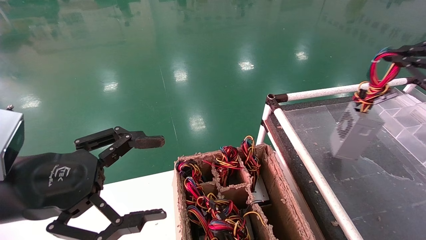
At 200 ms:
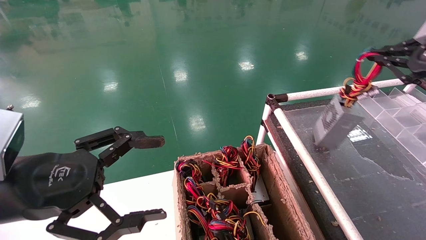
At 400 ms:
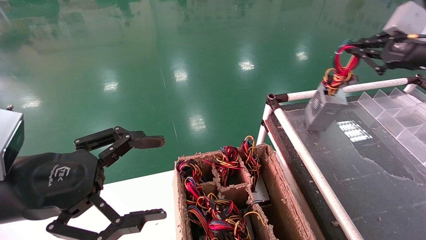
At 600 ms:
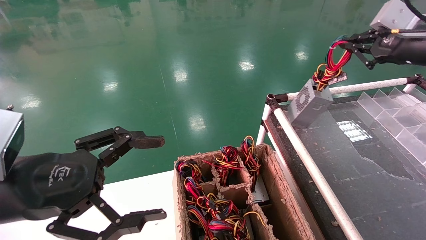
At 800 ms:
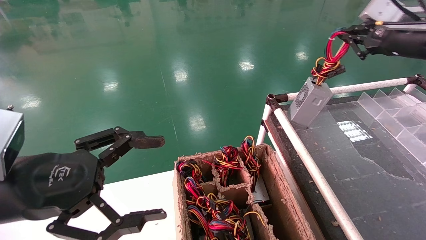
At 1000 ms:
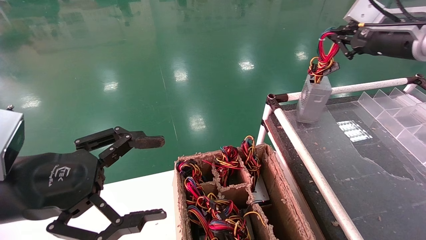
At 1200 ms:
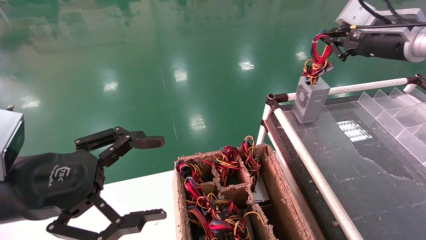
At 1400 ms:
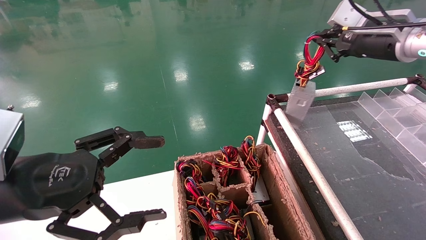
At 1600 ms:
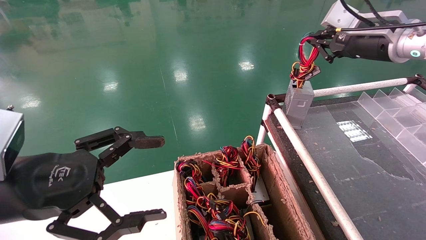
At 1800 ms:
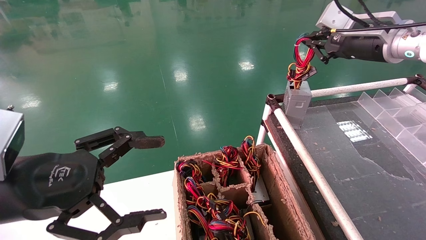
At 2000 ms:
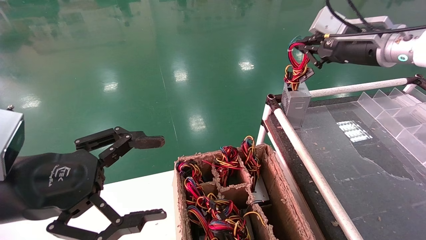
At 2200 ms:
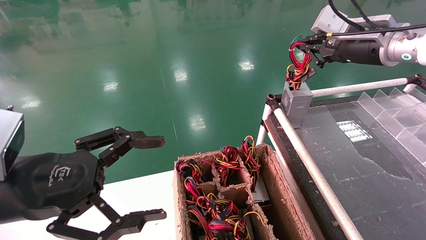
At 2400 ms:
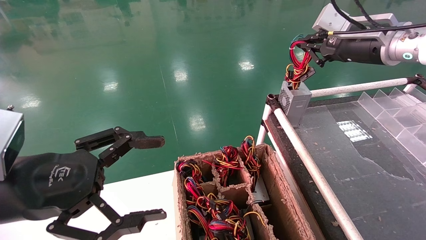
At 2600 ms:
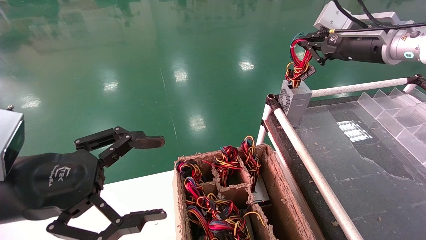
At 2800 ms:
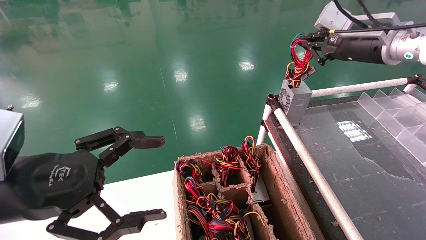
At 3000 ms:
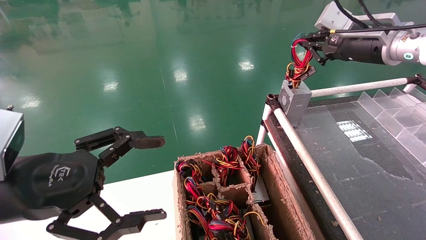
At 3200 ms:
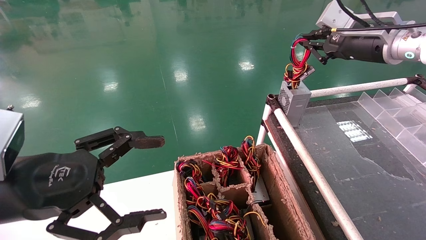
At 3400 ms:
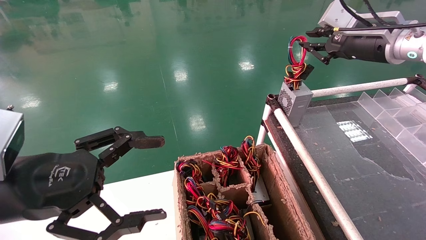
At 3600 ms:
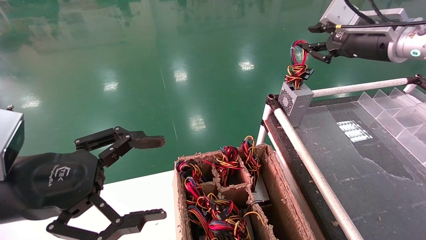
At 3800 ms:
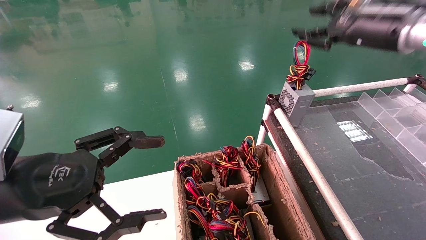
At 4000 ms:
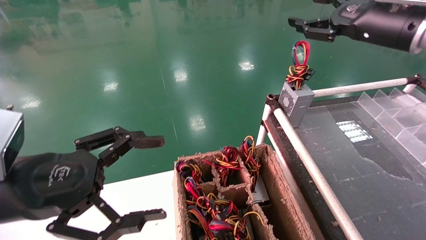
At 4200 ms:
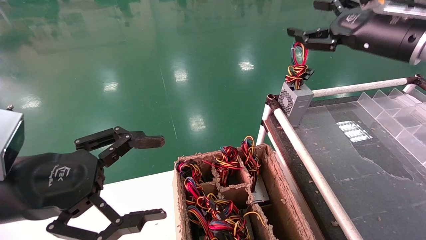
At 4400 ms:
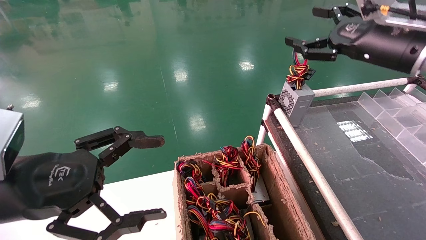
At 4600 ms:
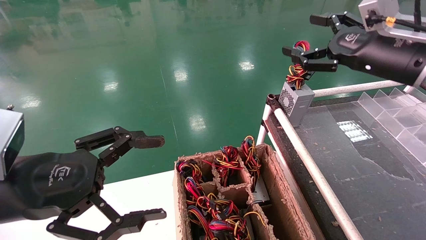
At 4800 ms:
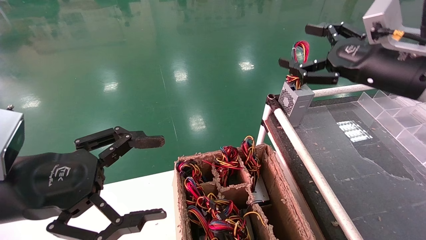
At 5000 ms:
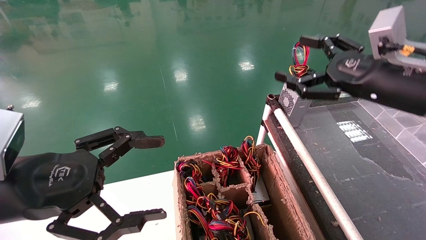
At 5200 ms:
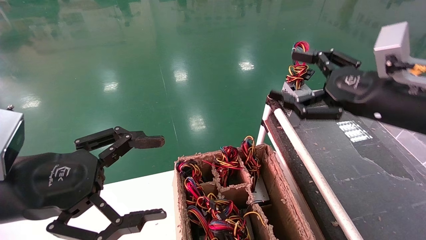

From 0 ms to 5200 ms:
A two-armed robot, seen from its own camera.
Step, from 0 ms to 3200 ms: Place the power supply on the operating table.
From 0 ms to 1800 ms: The right gripper travels to the left and forward by roughly 20 cm.
From 1800 ms to 3400 ms: The two grippers keep their place.
From 3400 ms to 5200 ms: The right gripper goes about 15 cm backward and downward, and opens its fingers.
